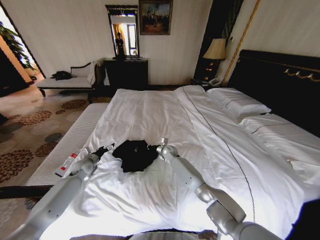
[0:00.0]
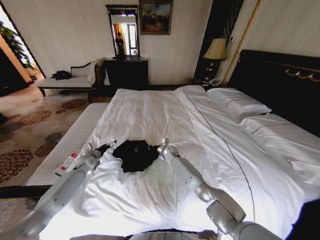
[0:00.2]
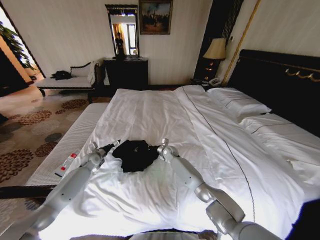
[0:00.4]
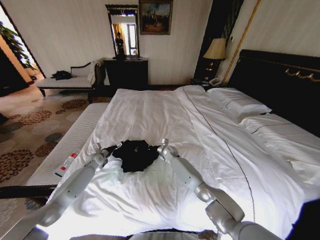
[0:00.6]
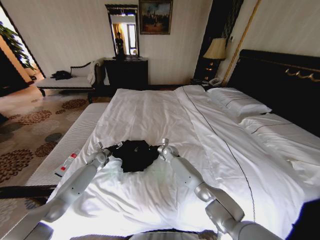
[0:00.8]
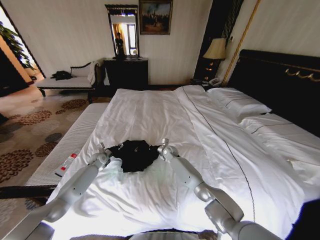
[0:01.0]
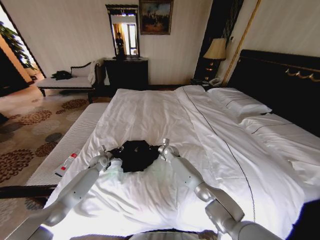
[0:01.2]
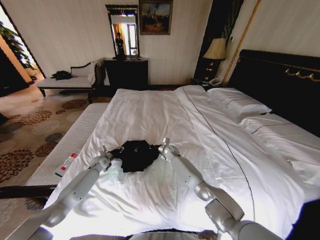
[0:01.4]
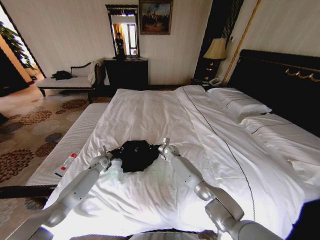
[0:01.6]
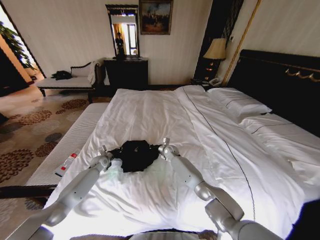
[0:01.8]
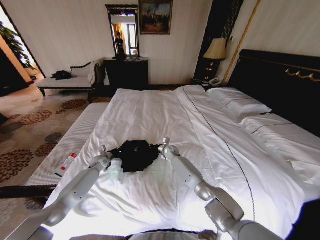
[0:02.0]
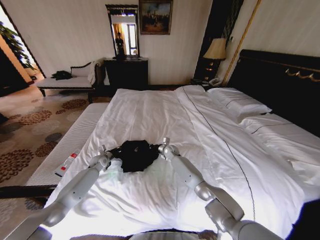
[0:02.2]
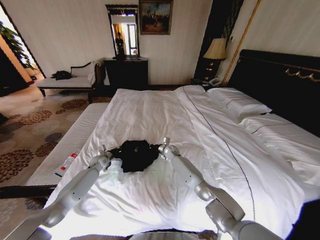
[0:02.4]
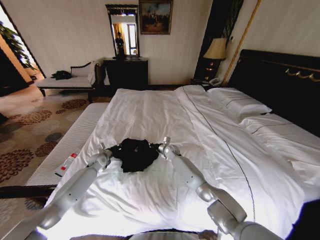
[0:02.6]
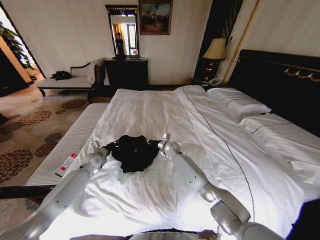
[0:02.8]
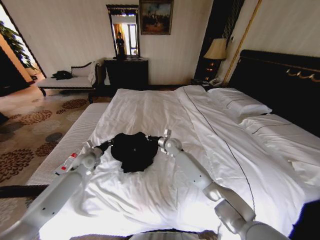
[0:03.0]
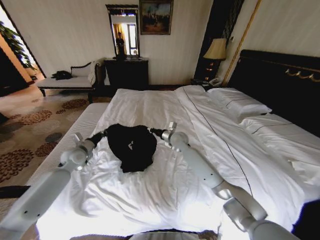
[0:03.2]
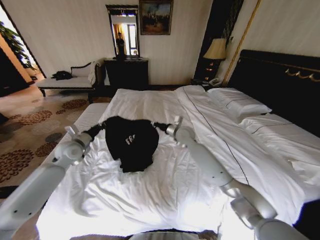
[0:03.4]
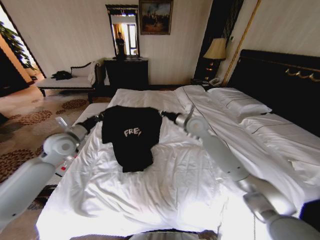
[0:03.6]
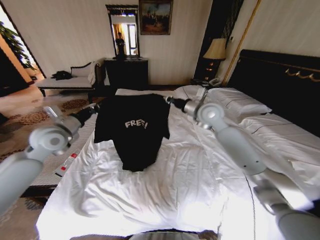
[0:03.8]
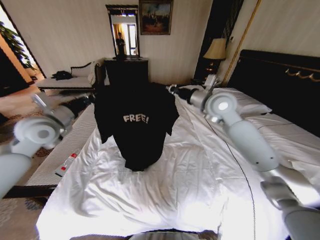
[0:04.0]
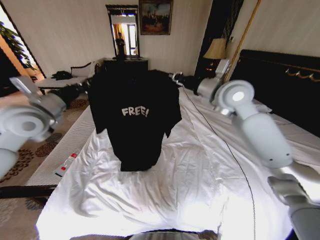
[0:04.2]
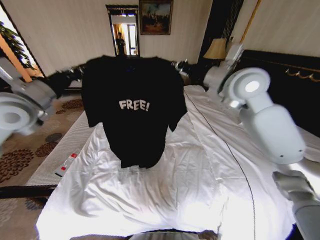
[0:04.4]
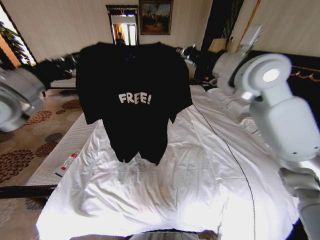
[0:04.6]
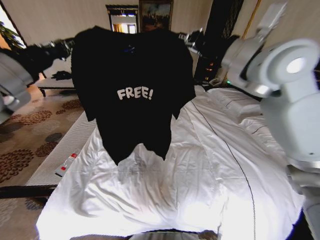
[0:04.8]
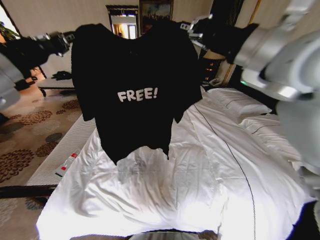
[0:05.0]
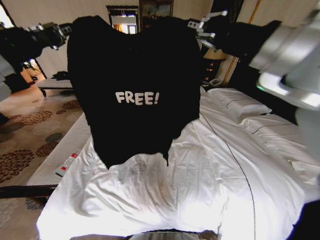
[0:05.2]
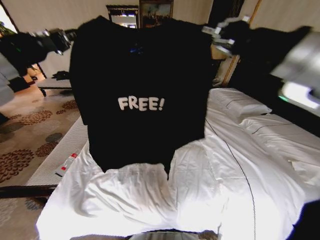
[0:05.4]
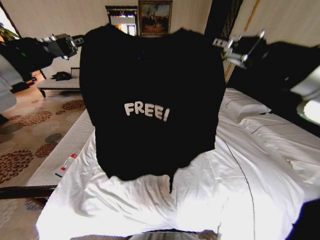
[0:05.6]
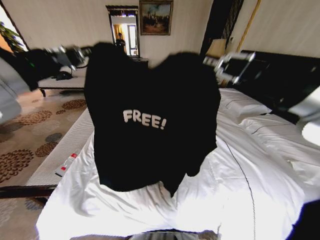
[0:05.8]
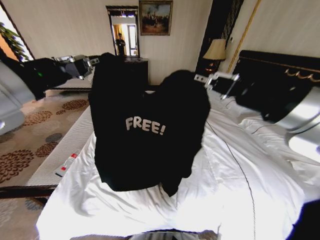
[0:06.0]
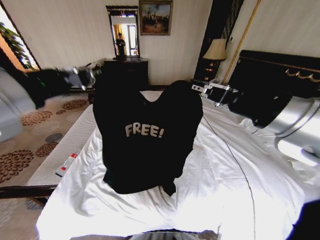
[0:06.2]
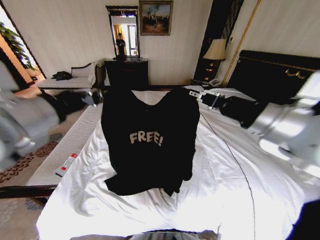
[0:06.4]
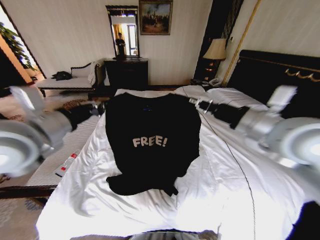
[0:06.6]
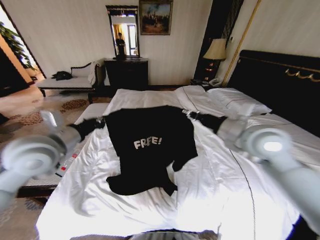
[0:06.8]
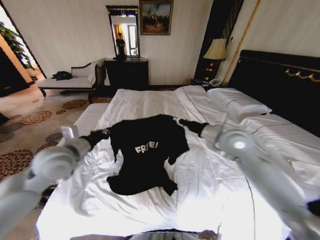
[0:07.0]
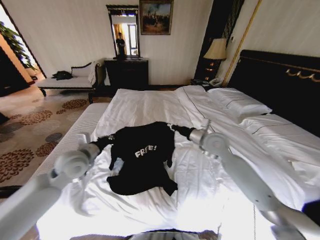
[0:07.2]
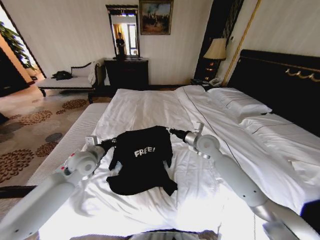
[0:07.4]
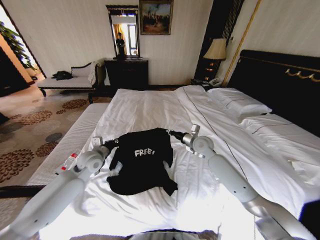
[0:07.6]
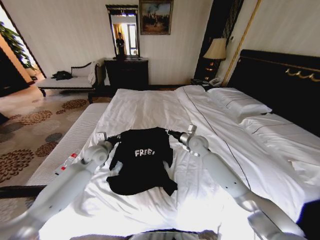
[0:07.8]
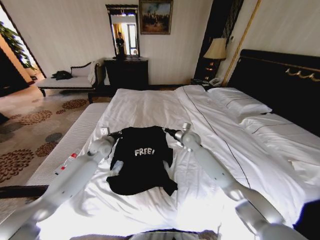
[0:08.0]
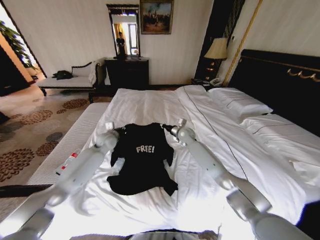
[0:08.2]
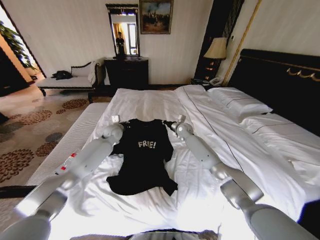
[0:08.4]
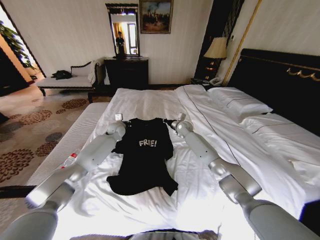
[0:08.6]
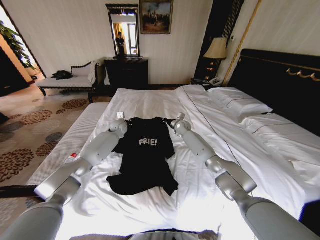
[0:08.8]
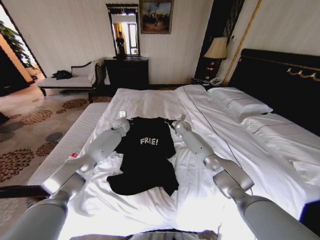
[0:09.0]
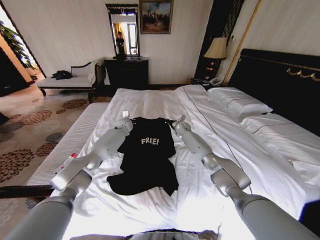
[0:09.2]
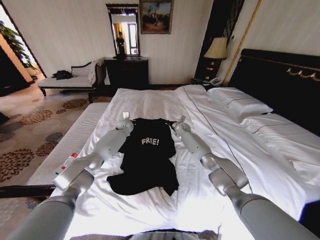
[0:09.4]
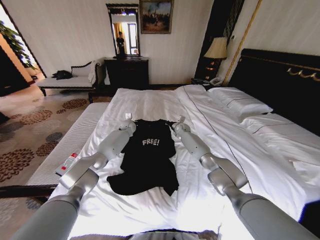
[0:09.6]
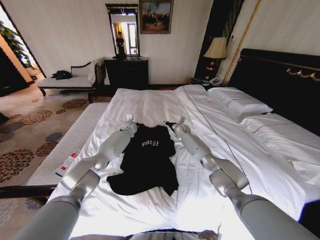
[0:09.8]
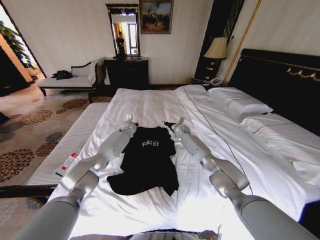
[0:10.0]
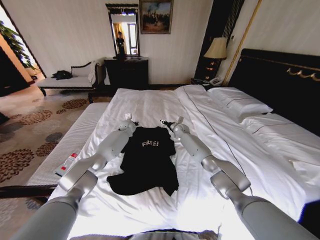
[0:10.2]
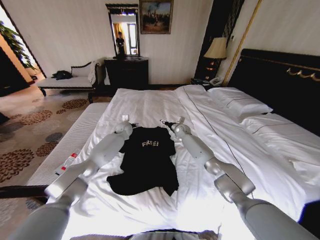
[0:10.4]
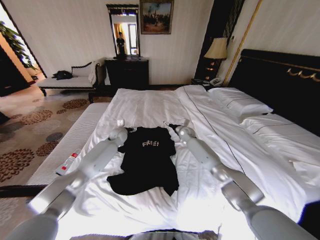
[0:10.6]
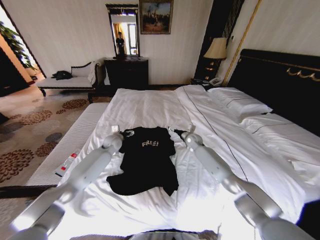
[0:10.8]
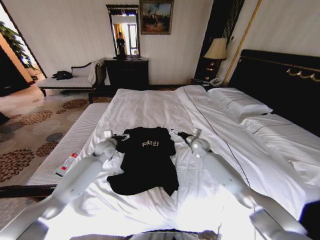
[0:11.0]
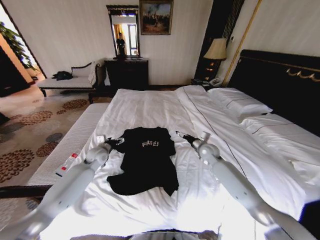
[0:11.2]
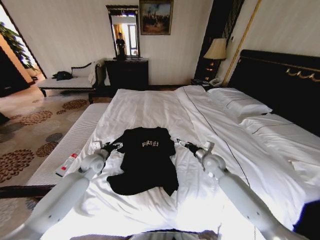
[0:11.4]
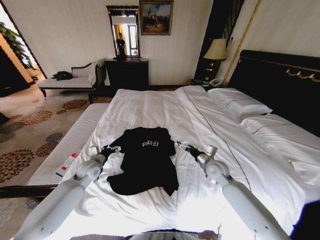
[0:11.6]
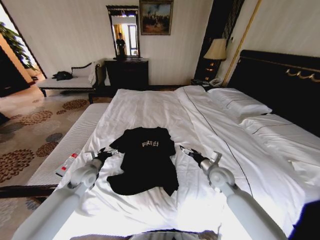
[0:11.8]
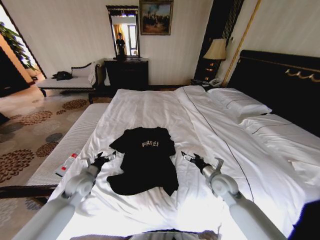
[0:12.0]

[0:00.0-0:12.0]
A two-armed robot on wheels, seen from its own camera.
Task of the whole recording: Fold the clothes on the bed.
0.0 to 1.6 s: The left gripper moves forward and to the right, about 10 cm, and closes.
1.6 to 3.0 s: The right gripper heads upward, covering roughly 10 cm; the left gripper travels upward and backward by roughly 10 cm, and closes up.
3.0 to 4.4 s: Both grippers travel together upward, some 35 cm.
4.4 to 6.0 s: The left gripper travels backward, to the right and upward by roughly 15 cm. Meanwhile the right gripper shifts approximately 20 cm backward.
6.0 to 7.6 s: Both grippers travel together downward and forward, about 40 cm.
7.6 to 9.0 s: Both grippers move forward, roughly 20 cm.
9.0 to 10.4 s: The left gripper opens up; the right gripper opens.
10.4 to 12.0 s: The right gripper moves backward, roughly 30 cm; the left gripper goes roughly 30 cm backward and to the left.

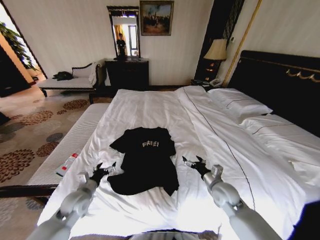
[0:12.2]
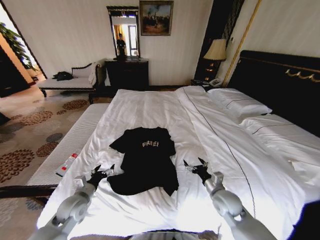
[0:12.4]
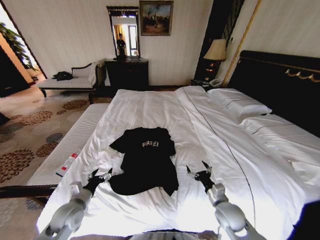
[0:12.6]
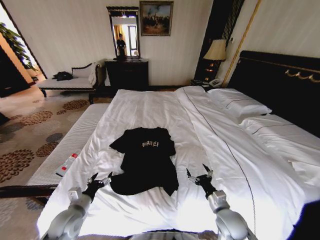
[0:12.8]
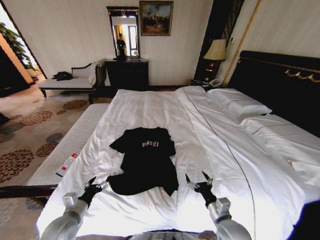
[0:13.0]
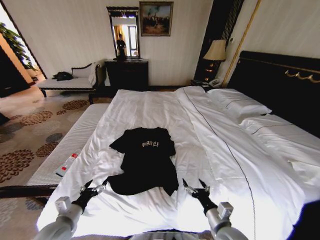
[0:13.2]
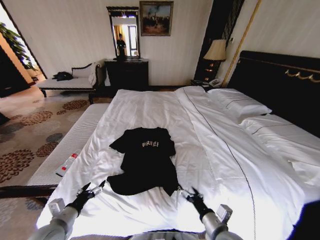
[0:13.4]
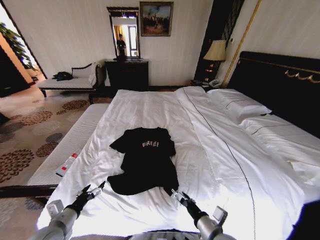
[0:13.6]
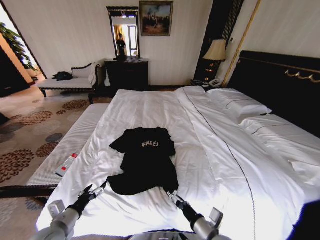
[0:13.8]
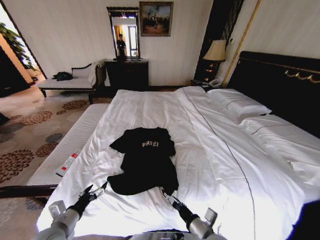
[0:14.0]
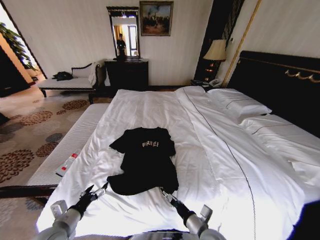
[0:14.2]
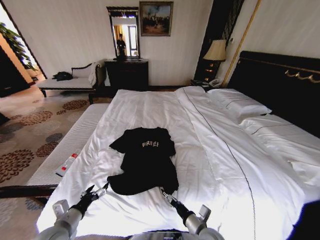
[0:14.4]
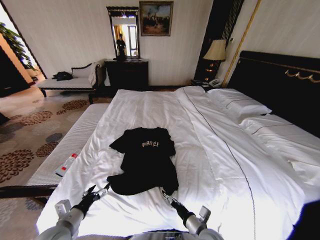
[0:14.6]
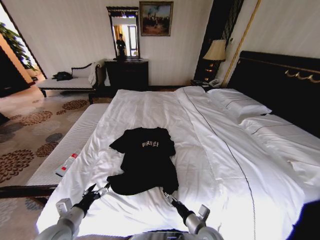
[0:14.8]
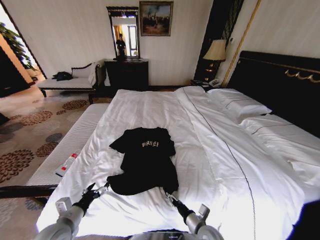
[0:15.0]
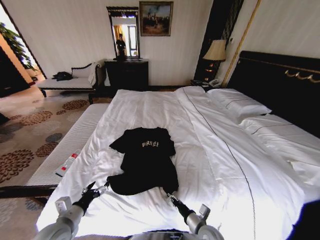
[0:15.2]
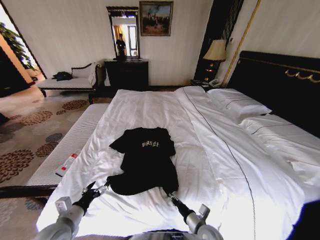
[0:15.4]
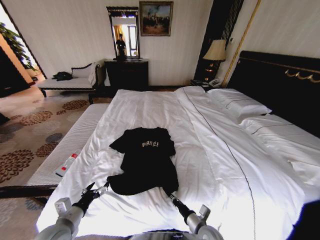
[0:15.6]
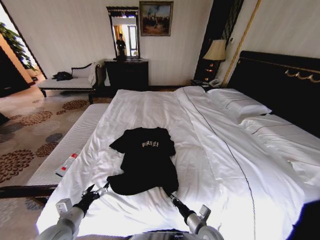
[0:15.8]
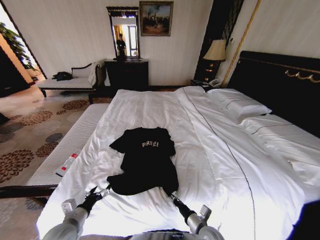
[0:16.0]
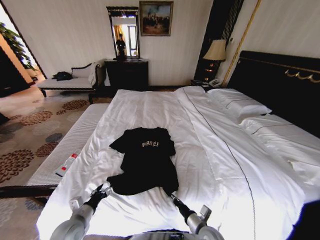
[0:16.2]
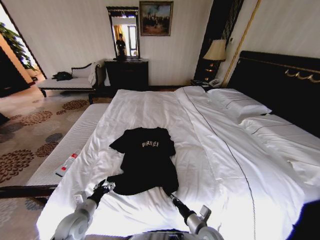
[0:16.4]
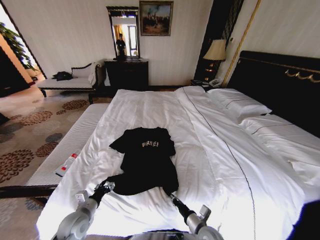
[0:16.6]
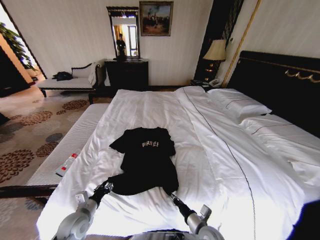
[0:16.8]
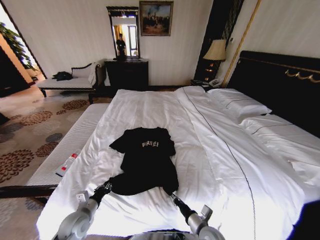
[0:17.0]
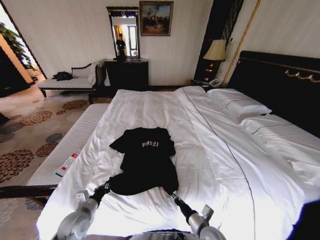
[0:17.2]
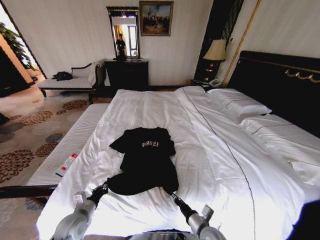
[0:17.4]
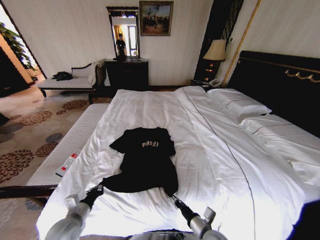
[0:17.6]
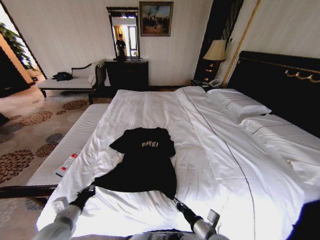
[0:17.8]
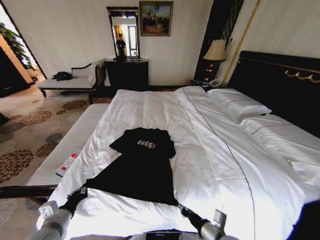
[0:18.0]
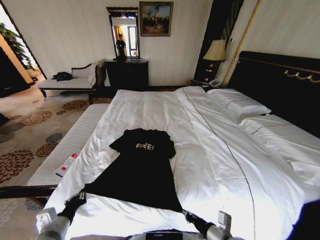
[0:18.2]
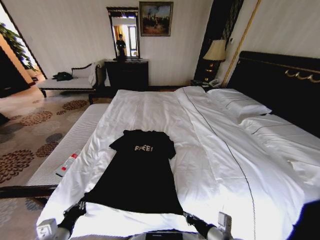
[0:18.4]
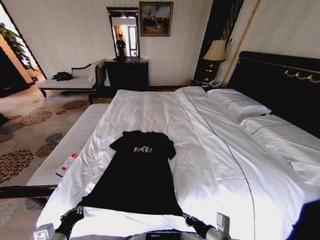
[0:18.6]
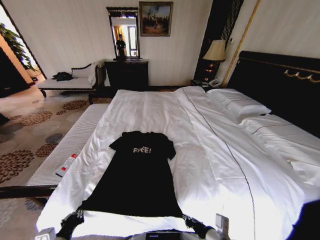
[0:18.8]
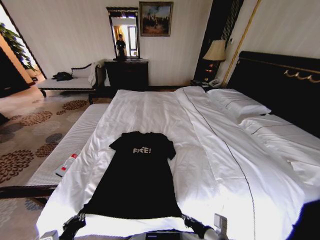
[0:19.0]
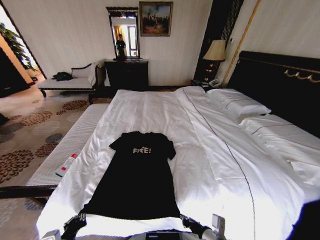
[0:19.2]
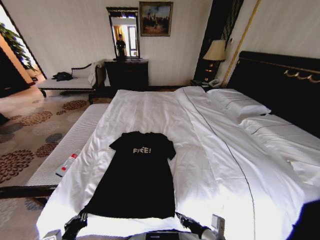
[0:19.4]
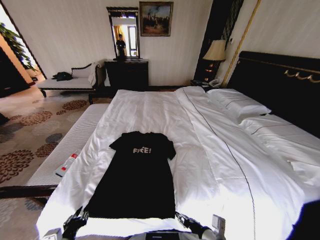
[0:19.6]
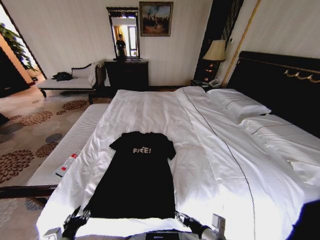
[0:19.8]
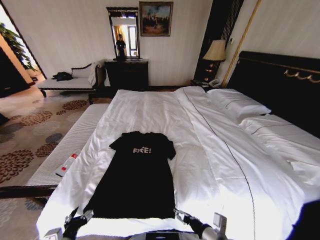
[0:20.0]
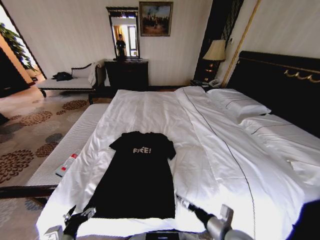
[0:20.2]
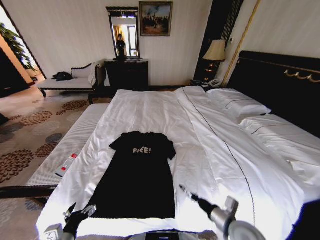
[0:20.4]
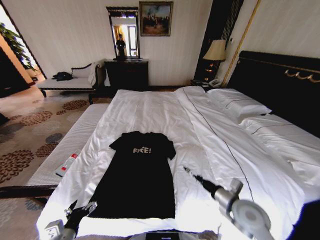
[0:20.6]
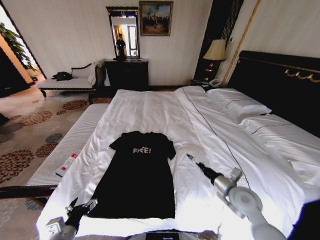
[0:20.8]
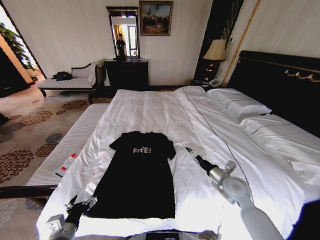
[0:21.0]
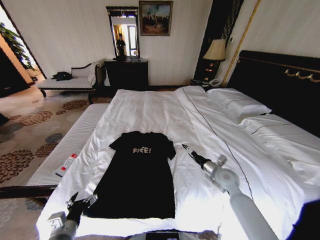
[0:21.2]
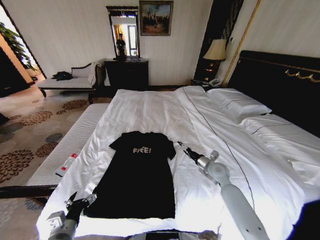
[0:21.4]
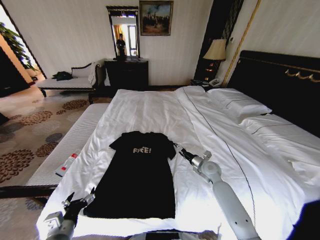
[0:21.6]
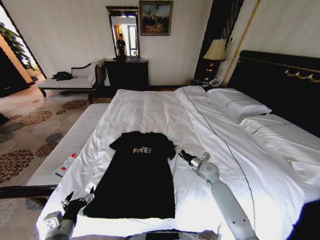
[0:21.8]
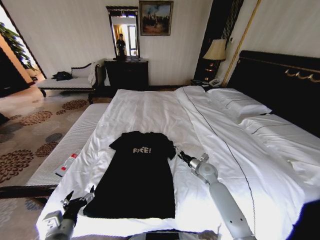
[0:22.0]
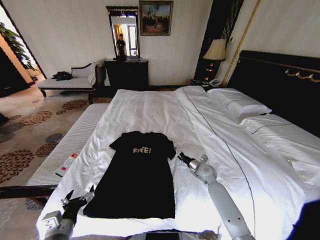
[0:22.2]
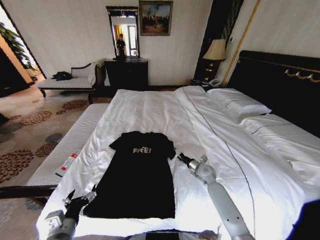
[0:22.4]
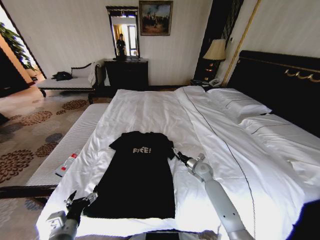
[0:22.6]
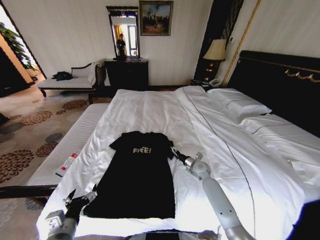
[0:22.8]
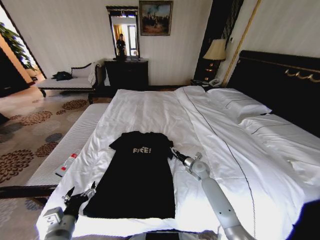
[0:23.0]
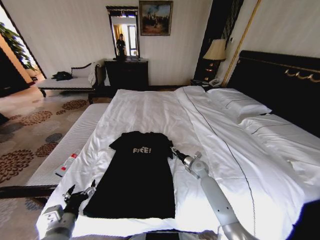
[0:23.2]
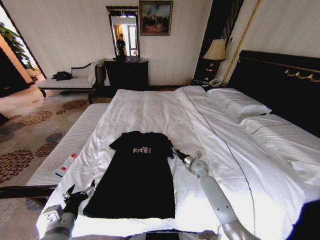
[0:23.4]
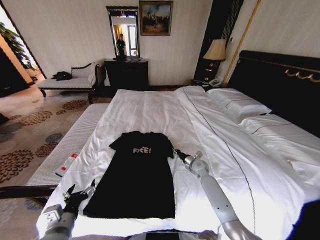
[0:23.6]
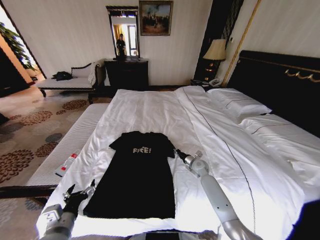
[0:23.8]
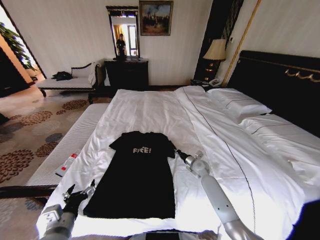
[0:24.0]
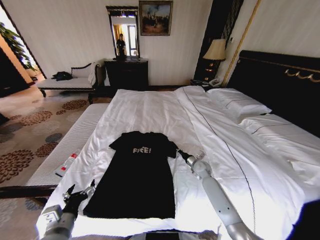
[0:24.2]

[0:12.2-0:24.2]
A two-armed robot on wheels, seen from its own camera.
Task of the whole recording: Fold the clothes on the bed.
12.2 to 13.8 s: The right gripper is displaced backward and to the left by approximately 20 cm. The left gripper heads backward, covering about 10 cm.
13.8 to 15.2 s: The right gripper goes approximately 10 cm downward, and closes up.
15.2 to 16.6 s: The right gripper closes. Meanwhile the left gripper travels downward by approximately 5 cm.
16.6 to 18.2 s: The right gripper travels upward by about 10 cm. The left gripper goes about 10 cm backward and upward, and closes its fingers.
18.2 to 19.8 s: The right gripper opens up; the left gripper ends up approximately 5 cm from where it was, and opens.
19.8 to 21.2 s: The right gripper is displaced forward by roughly 25 cm, and opens its fingers, while the left gripper opens its fingers.
21.2 to 22.6 s: The right gripper moves downward and forward, roughly 10 cm.
22.6 to 24.2 s: The right gripper closes its fingers.
